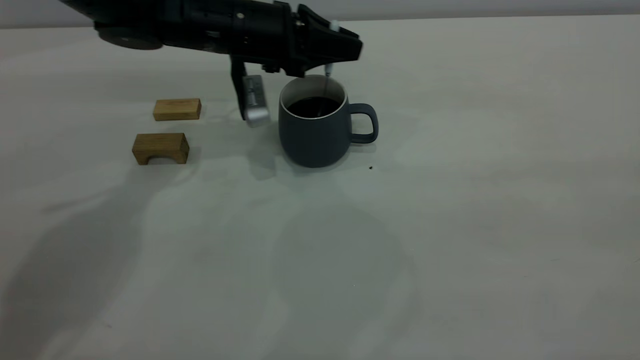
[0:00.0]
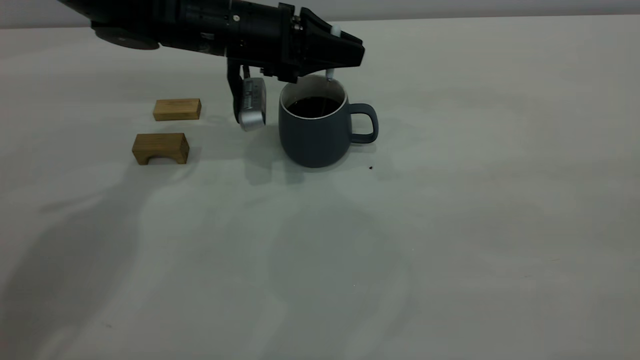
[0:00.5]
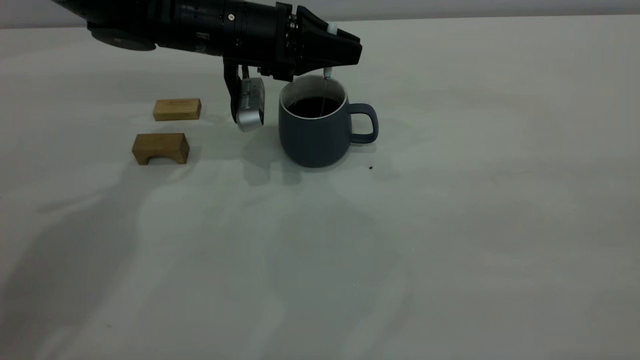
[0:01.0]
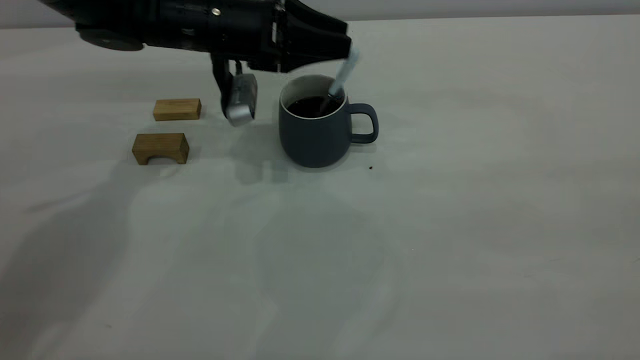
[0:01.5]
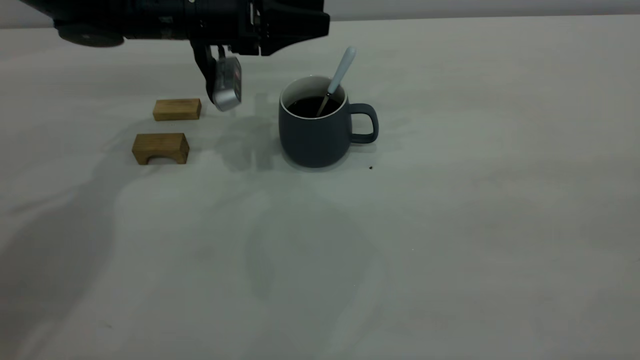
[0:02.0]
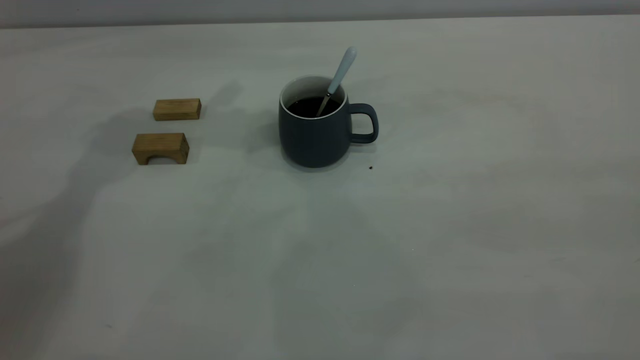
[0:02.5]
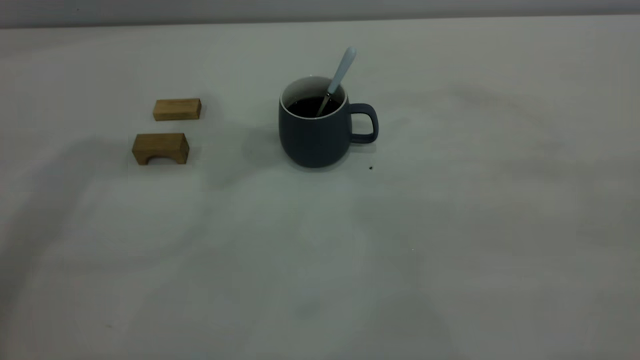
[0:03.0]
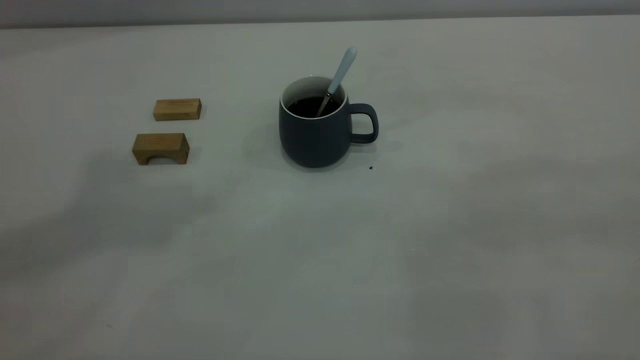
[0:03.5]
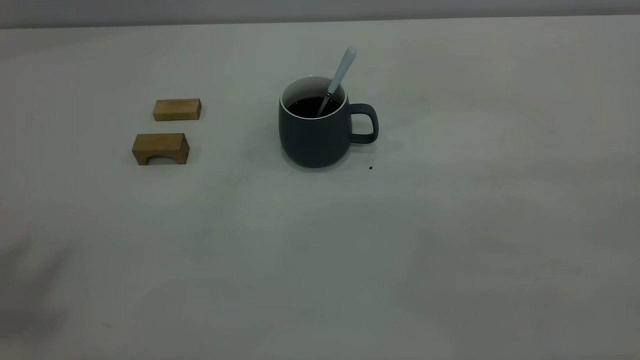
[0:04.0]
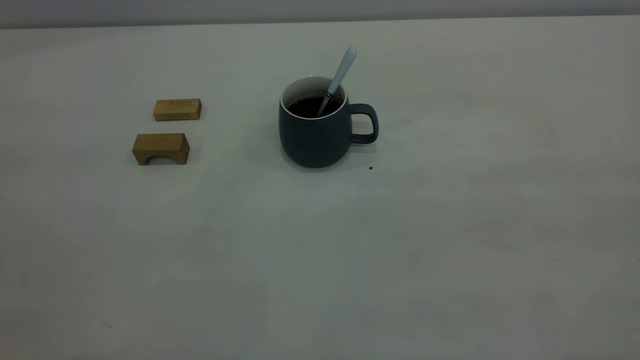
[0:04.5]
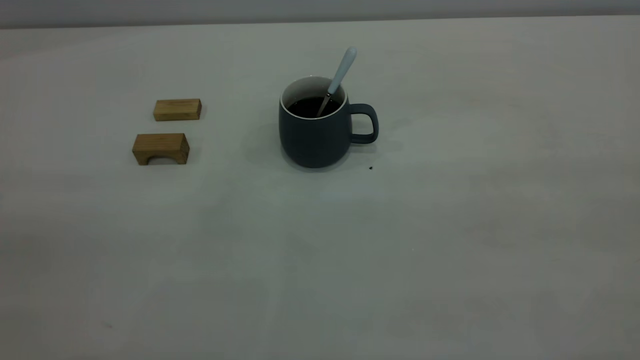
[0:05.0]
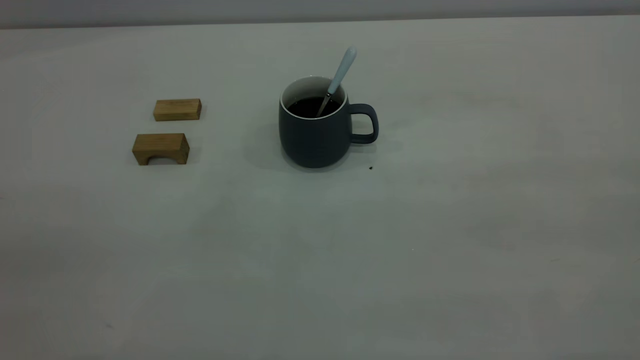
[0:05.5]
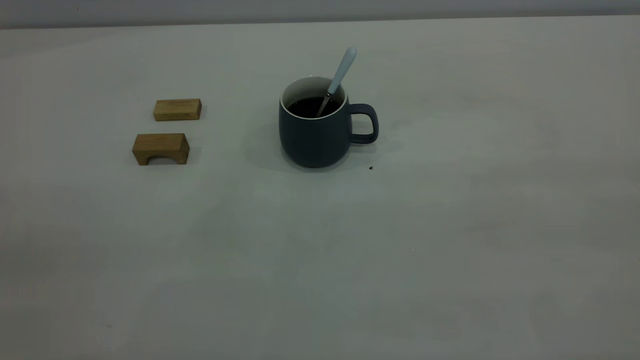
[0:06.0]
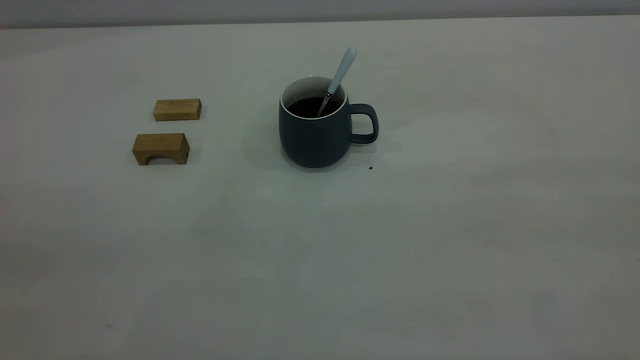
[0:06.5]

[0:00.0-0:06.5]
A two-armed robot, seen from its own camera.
Step, 0:00.0 to 0:02.0: Stir the coffee in the cup.
0:00.0 to 0:02.0: The left gripper ends up about 5 cm from where it was, and opens its fingers.
0:02.0 to 0:04.5: The left gripper goes about 60 cm backward and upward.

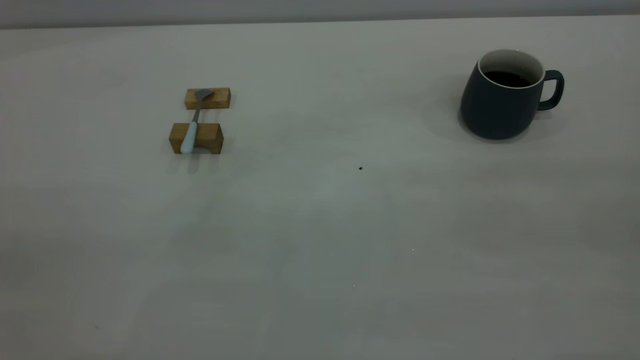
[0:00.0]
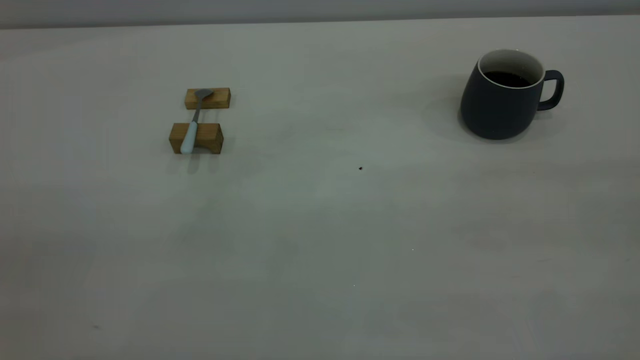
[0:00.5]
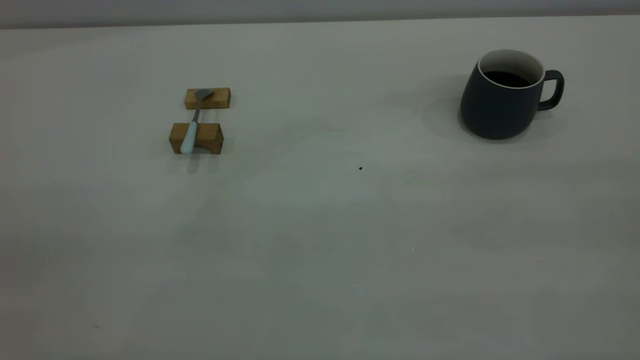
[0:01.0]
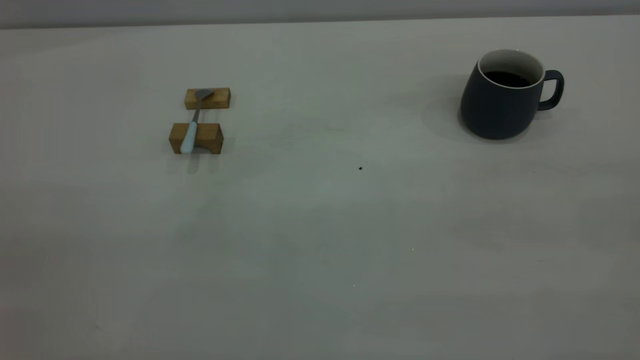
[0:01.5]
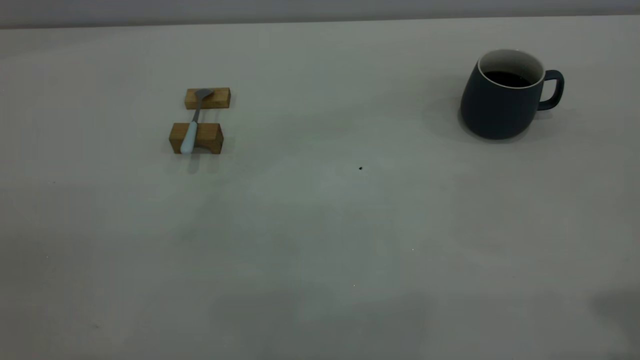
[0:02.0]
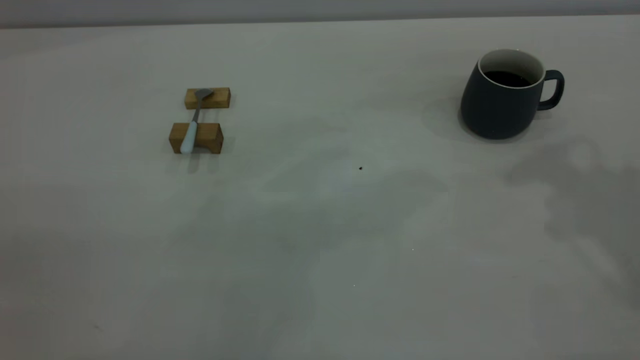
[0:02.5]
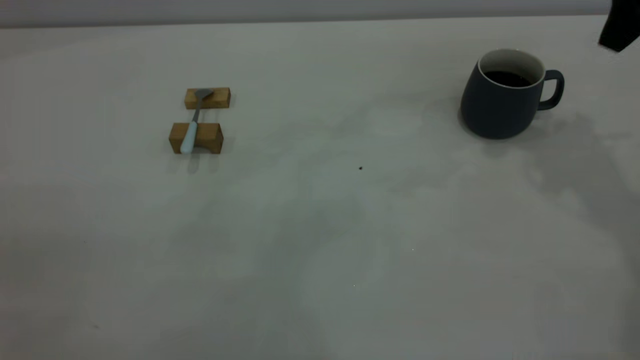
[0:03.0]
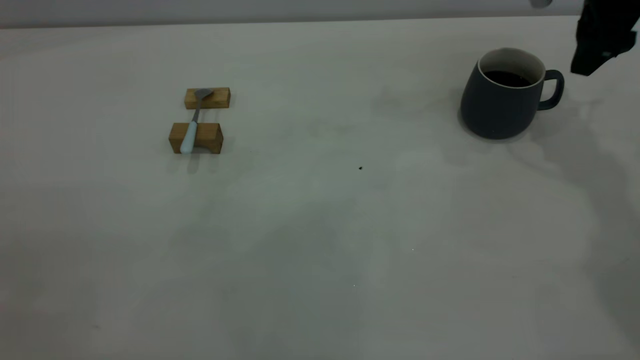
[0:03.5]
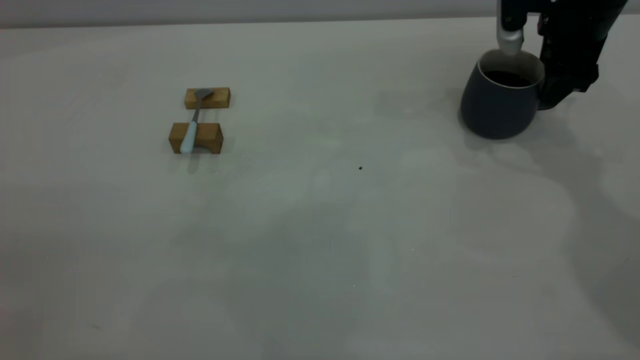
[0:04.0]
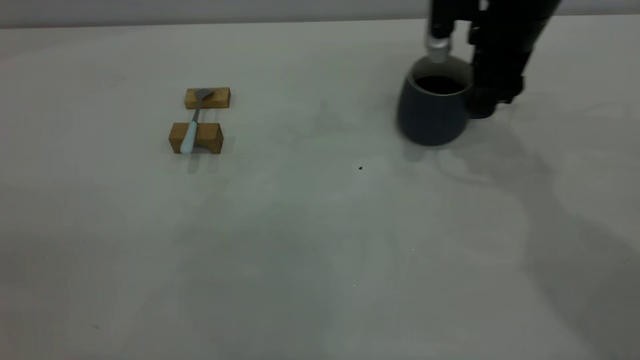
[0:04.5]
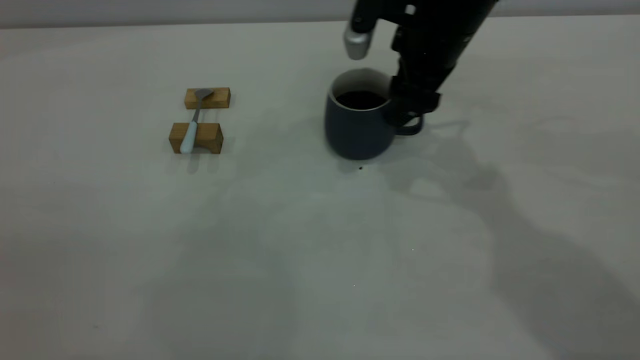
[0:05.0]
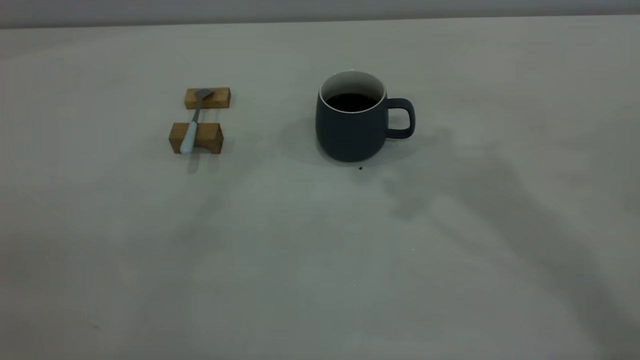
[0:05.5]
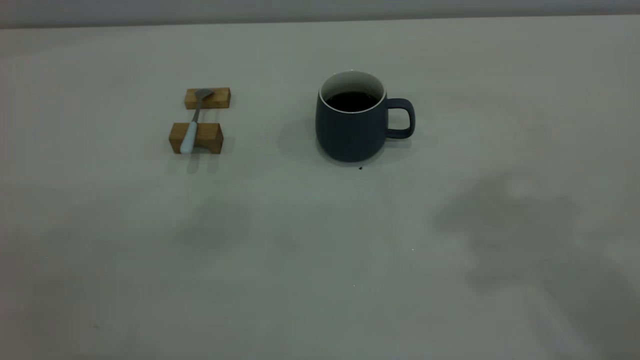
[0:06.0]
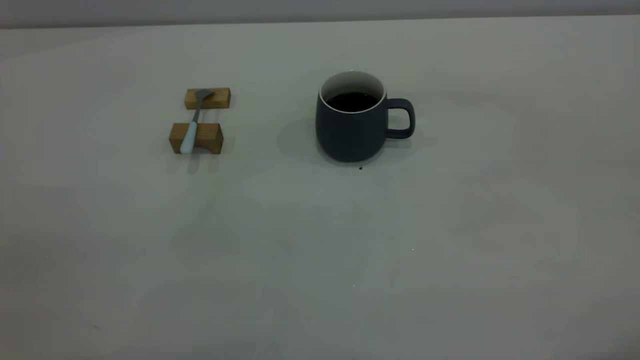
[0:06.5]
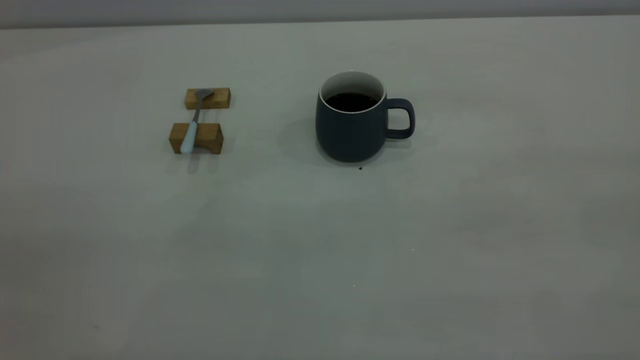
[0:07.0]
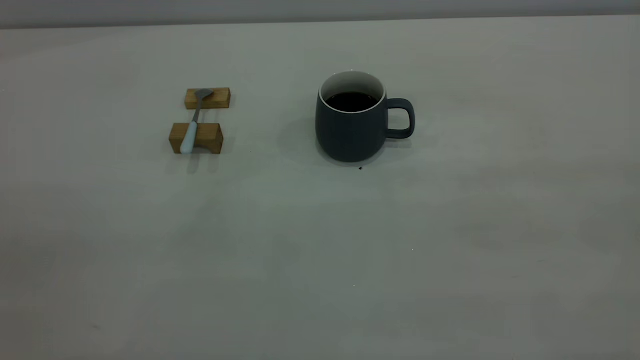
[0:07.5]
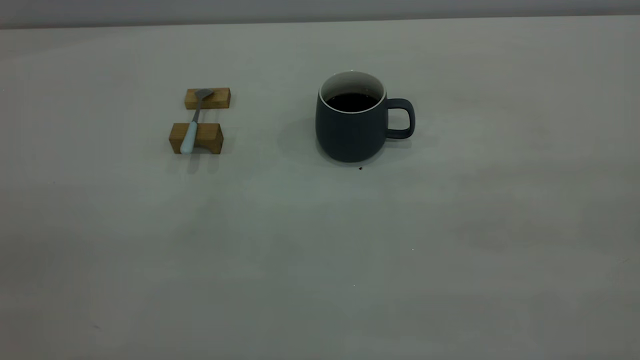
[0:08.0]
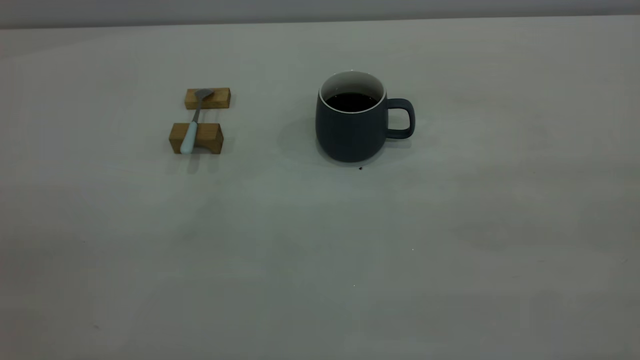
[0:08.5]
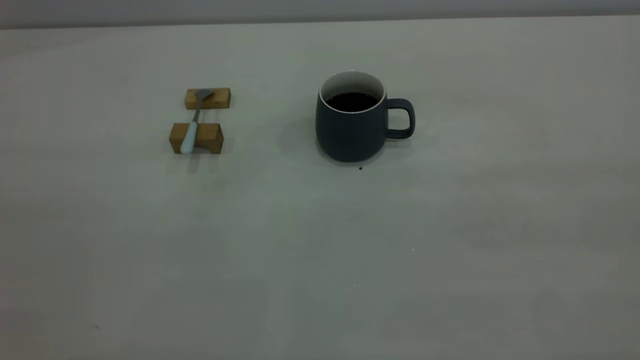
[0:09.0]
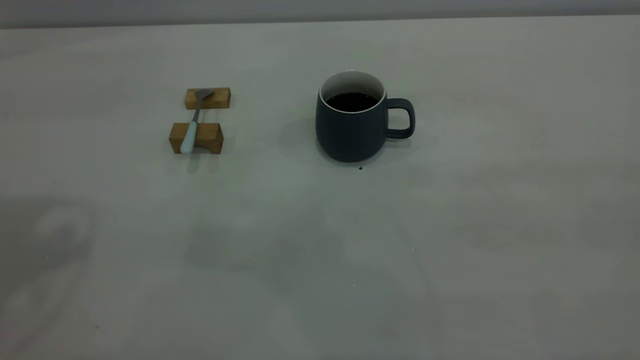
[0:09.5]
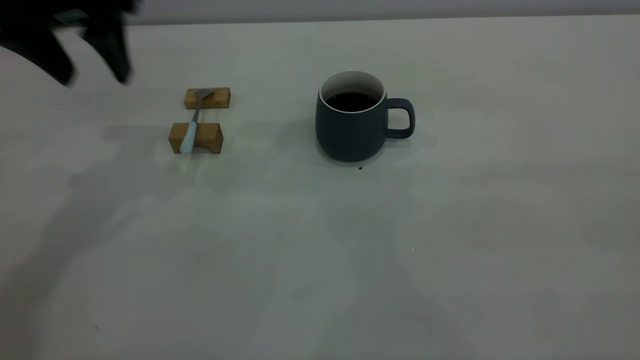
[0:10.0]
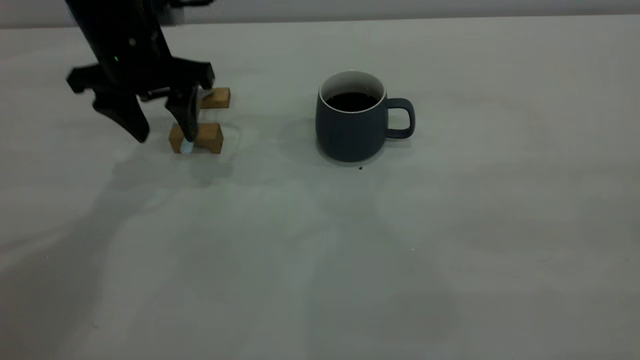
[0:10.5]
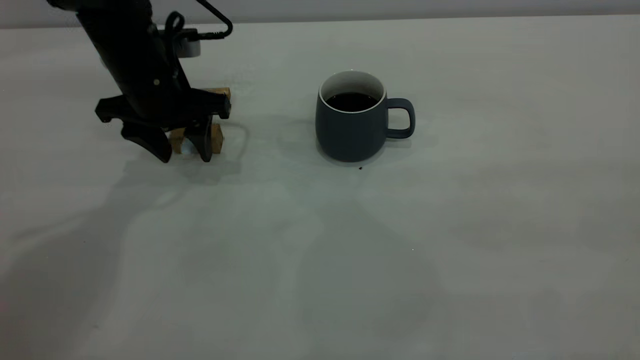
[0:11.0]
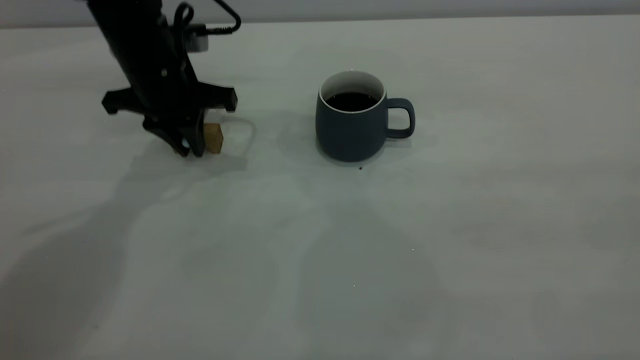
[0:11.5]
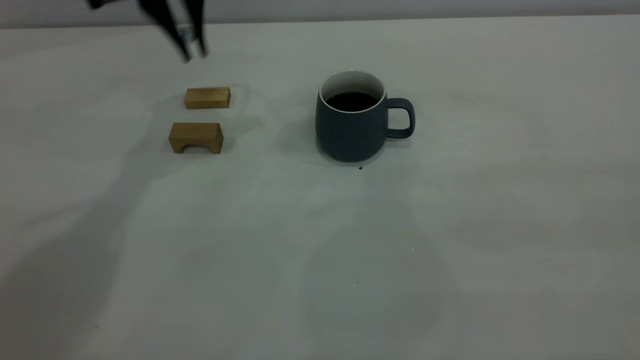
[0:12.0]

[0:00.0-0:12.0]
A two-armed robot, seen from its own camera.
Step, 0:00.0 to 0:05.0: Move the cup with coffee to the center of view.
Step, 0:05.5 to 0:11.5: Pick up the spoon.
0:02.0 to 0:04.0: The right gripper travels forward and downward by approximately 40 cm.
0:04.0 to 0:06.0: The right gripper travels upward and backward by roughly 40 cm.
0:08.0 to 0:10.0: The left gripper moves forward, about 40 cm, and opens up.
0:10.0 to 0:12.0: The left gripper heads forward and to the right, covering some 10 cm, reaches about 10 cm downward, then returns, and closes its fingers.

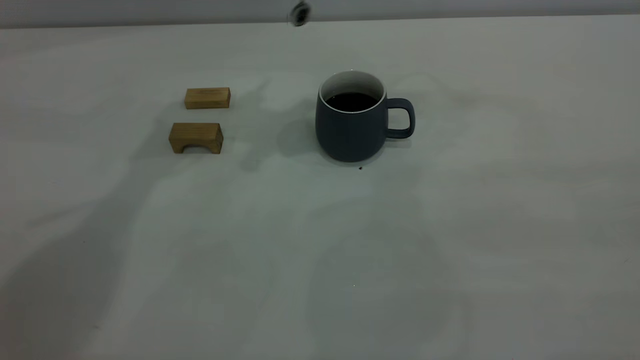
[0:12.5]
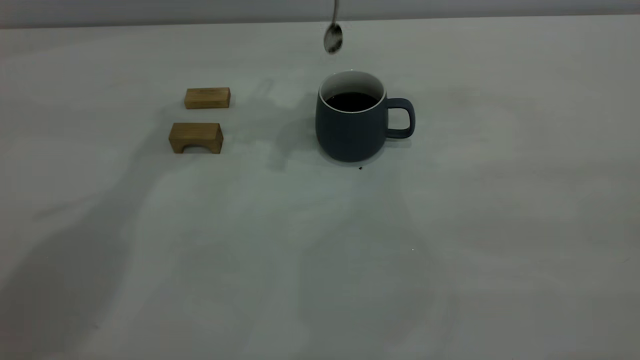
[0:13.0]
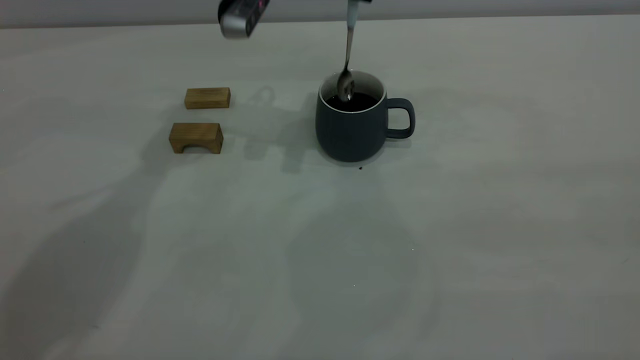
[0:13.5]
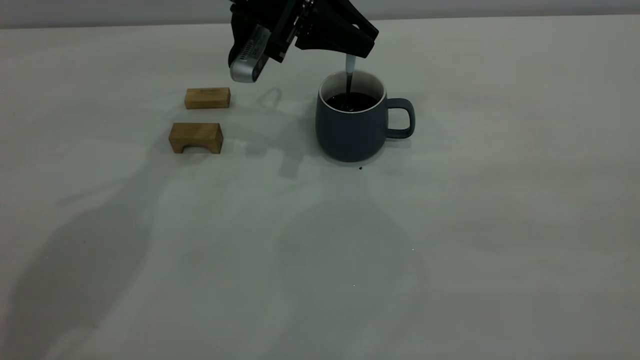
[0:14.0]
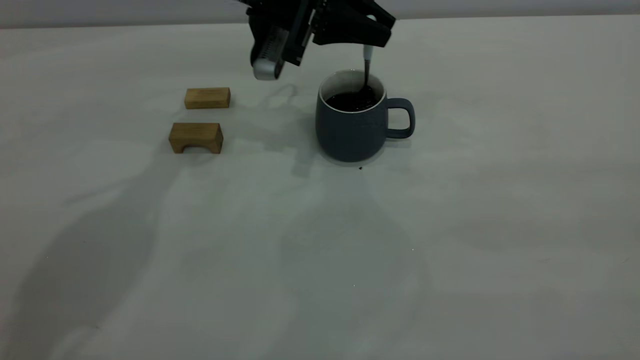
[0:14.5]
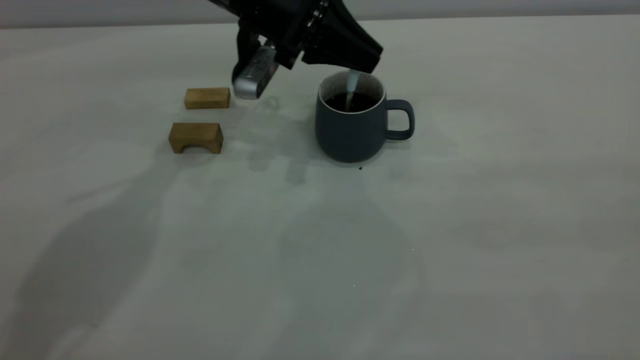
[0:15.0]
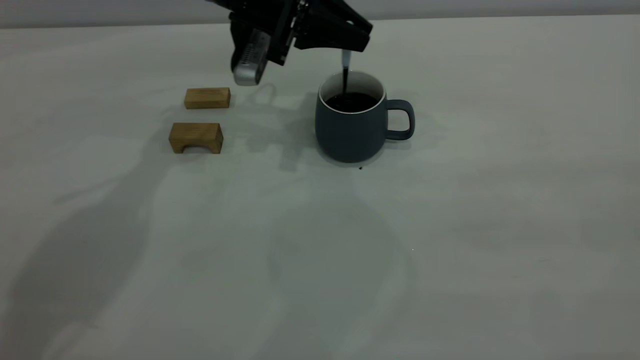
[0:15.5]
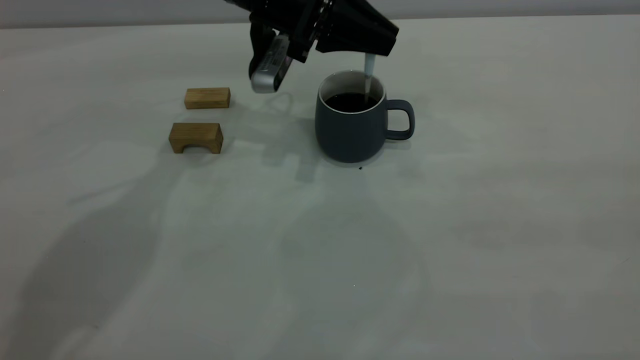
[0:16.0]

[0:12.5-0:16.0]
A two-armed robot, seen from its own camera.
0:12.5 to 0:14.5: The left gripper travels downward by approximately 10 cm.
0:14.5 to 0:16.0: The grippers stay close to where they were, moving slightly.
